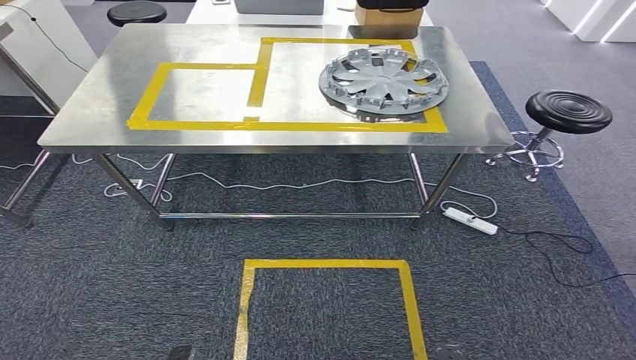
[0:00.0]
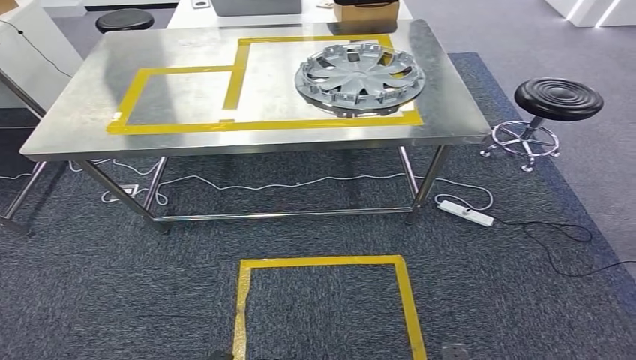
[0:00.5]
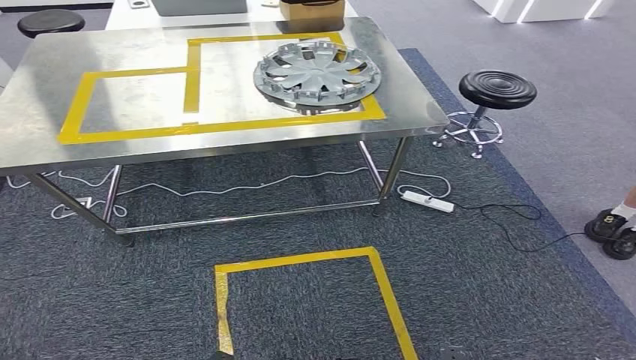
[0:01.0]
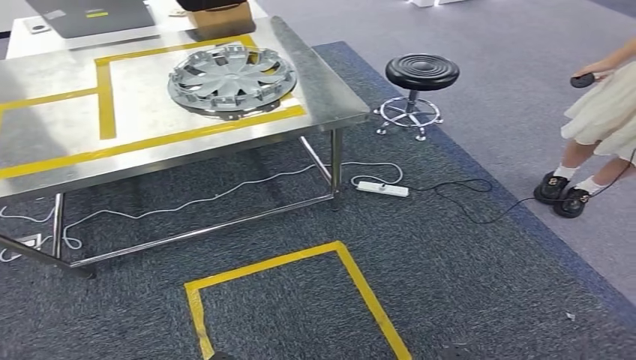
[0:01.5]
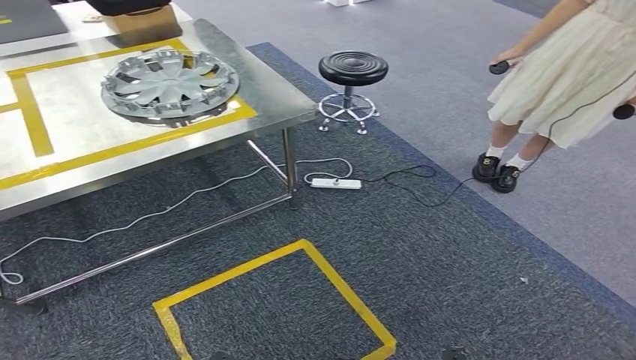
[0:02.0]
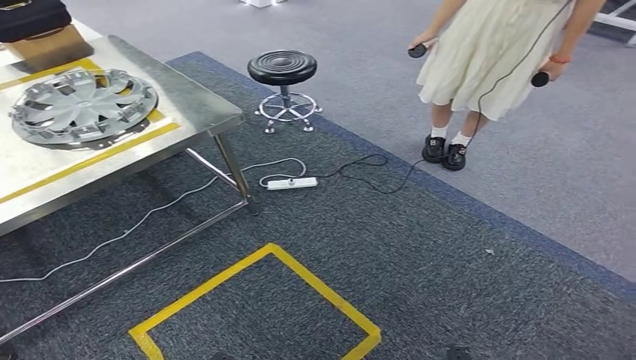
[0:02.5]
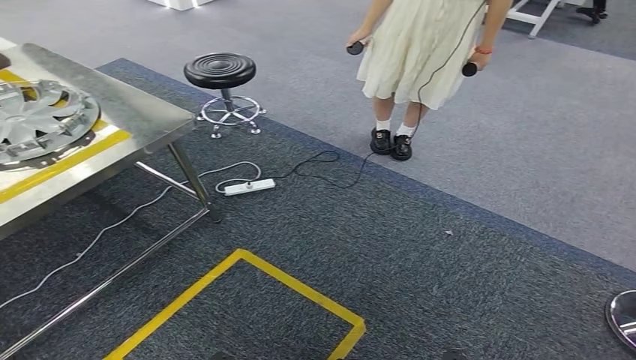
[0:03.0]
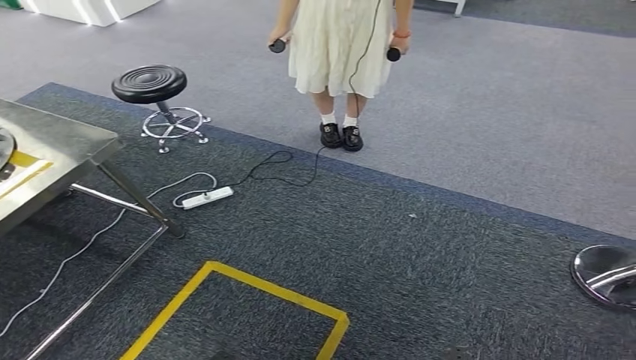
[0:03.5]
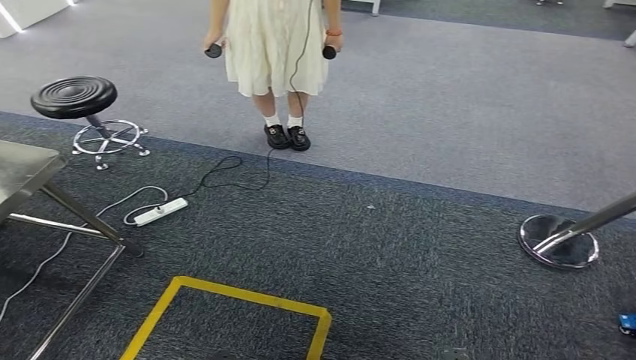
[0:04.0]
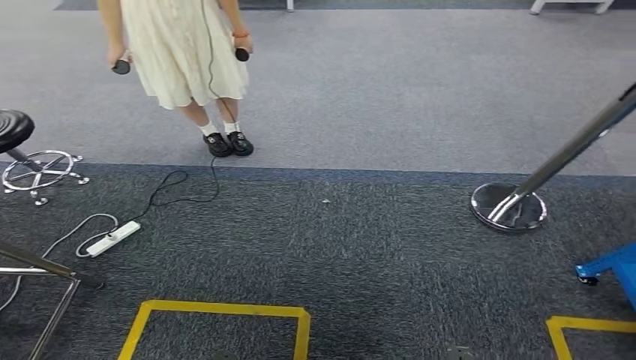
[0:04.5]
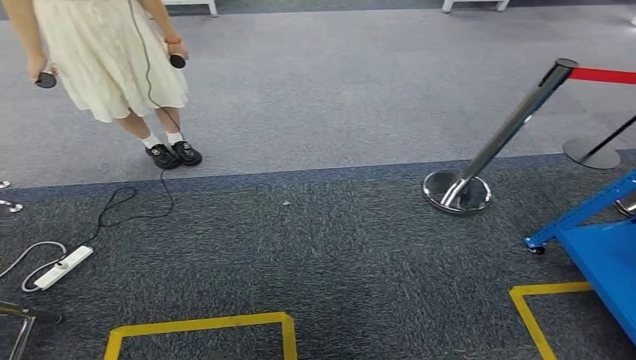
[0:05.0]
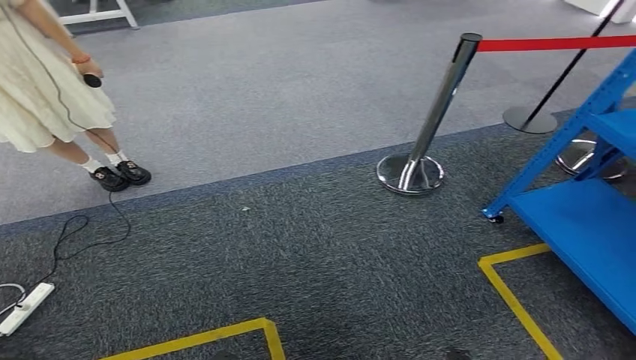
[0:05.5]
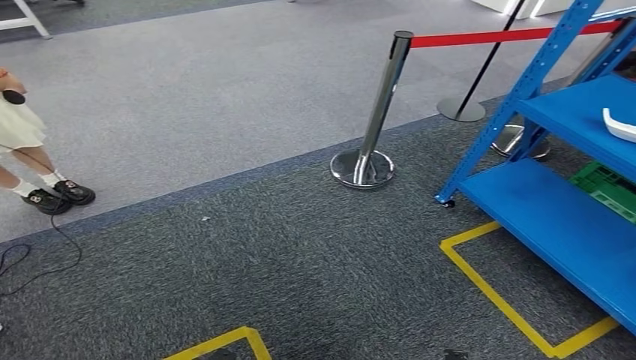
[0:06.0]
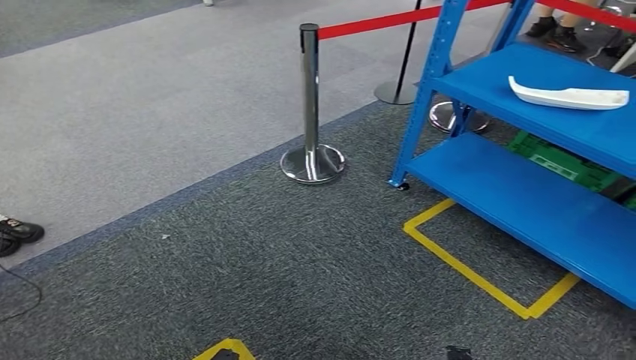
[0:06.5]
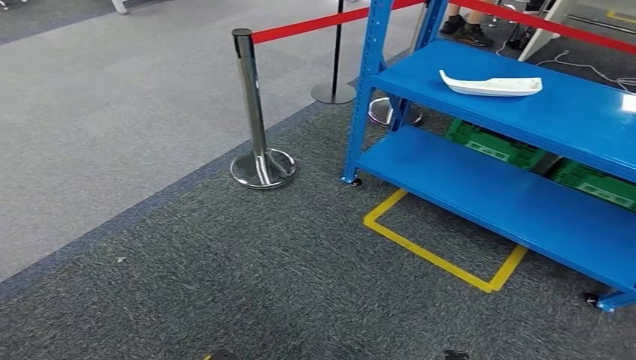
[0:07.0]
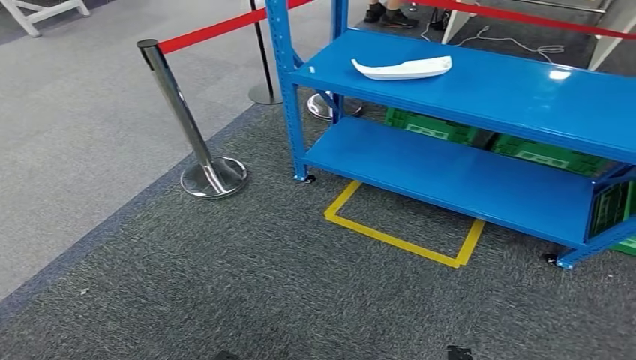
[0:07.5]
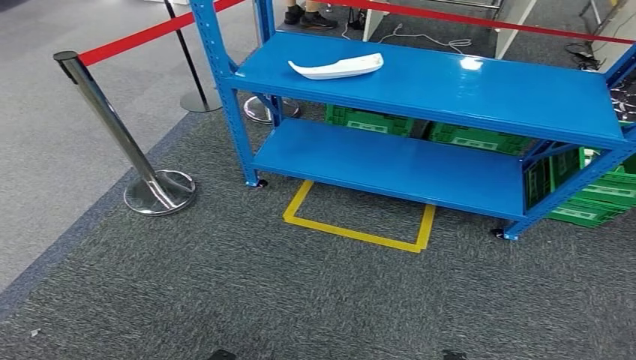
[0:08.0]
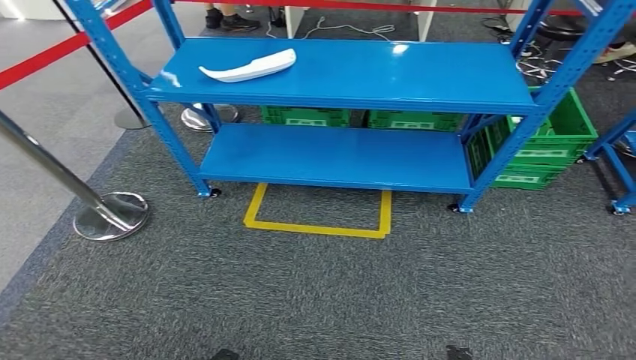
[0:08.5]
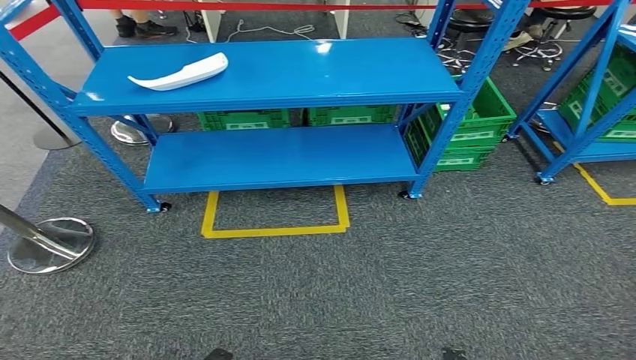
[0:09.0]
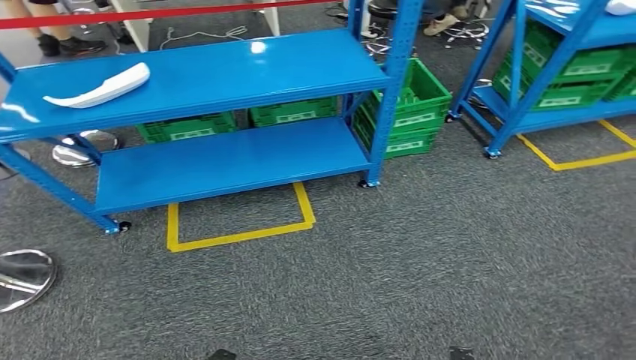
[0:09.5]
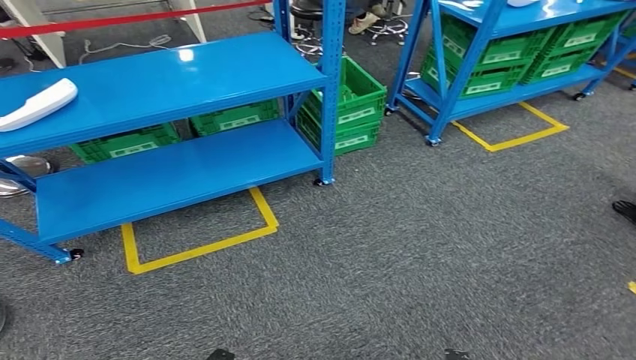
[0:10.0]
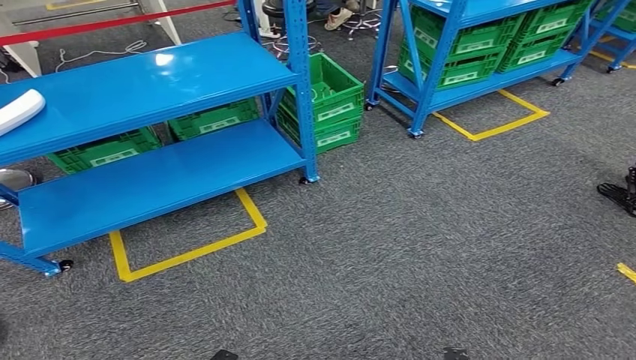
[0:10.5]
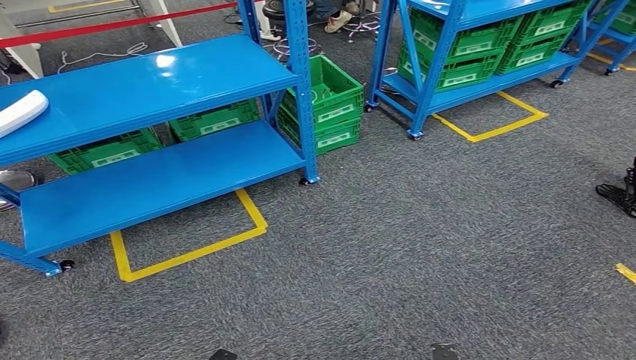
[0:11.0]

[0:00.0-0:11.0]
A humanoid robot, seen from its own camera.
Step, 0:00.0 to 0:11.0: Return to the initial position at the workbench.
